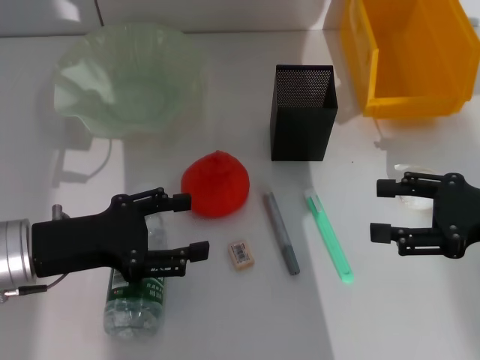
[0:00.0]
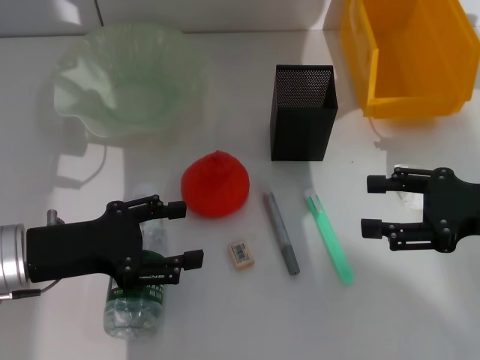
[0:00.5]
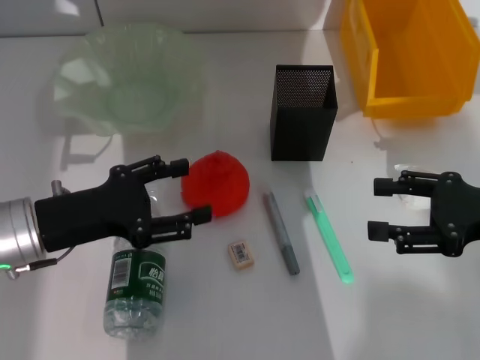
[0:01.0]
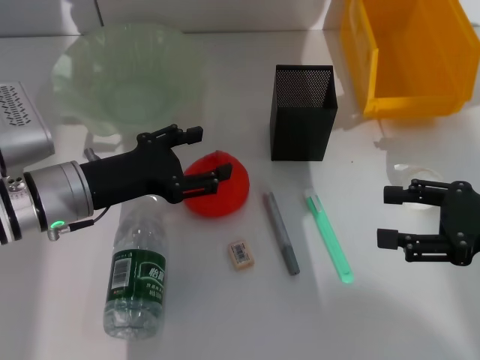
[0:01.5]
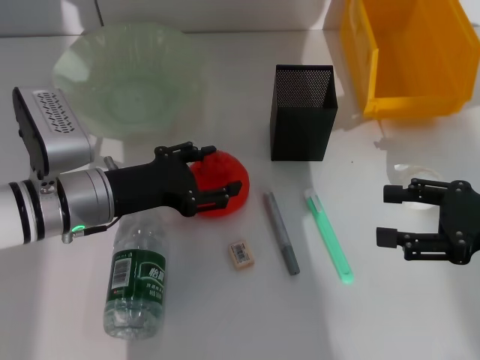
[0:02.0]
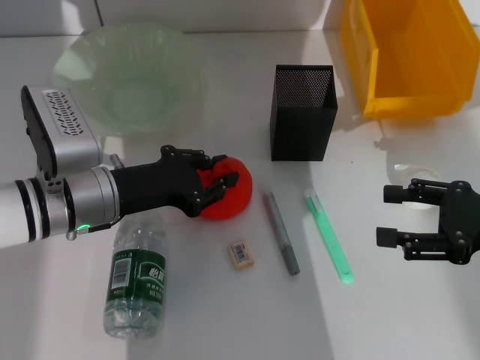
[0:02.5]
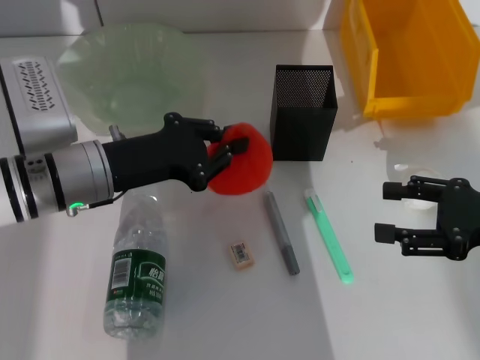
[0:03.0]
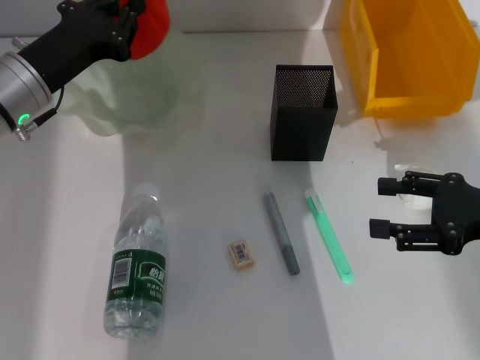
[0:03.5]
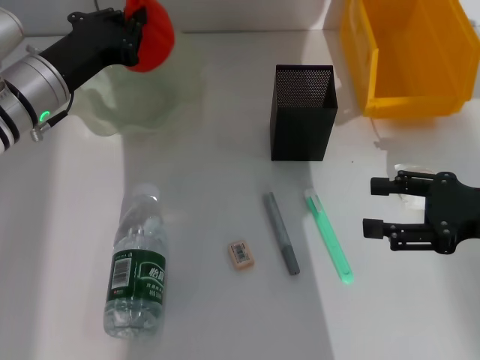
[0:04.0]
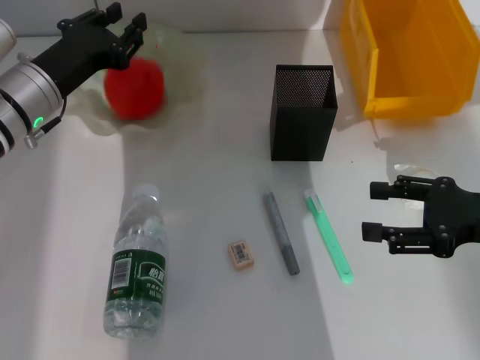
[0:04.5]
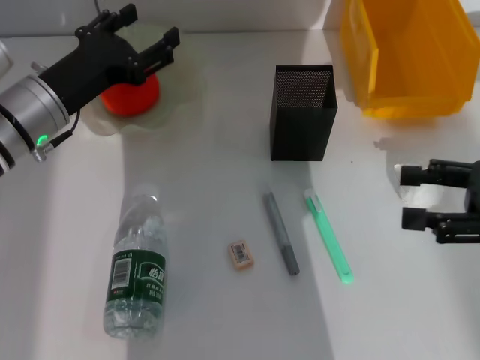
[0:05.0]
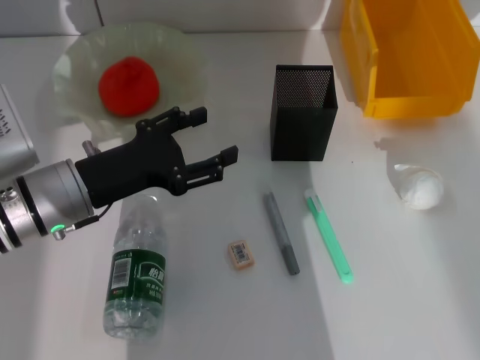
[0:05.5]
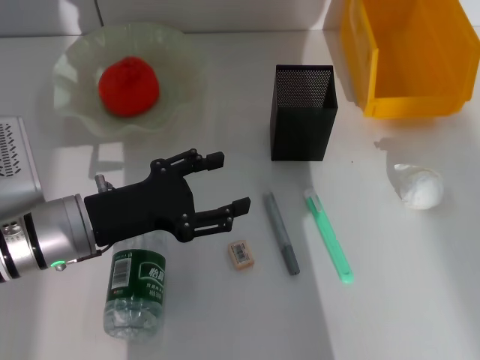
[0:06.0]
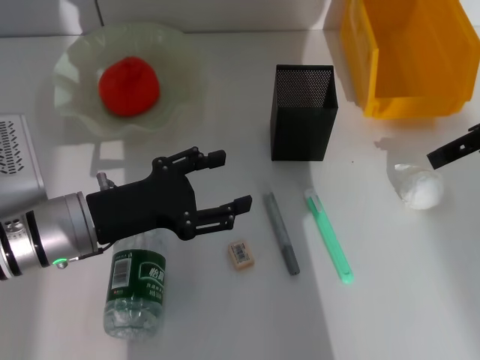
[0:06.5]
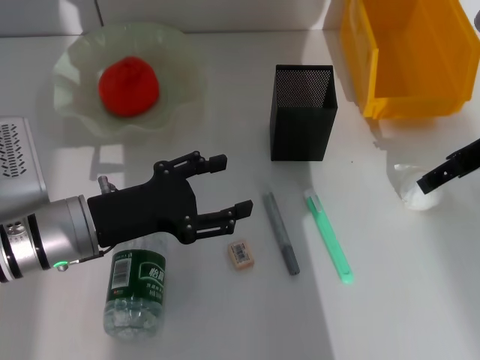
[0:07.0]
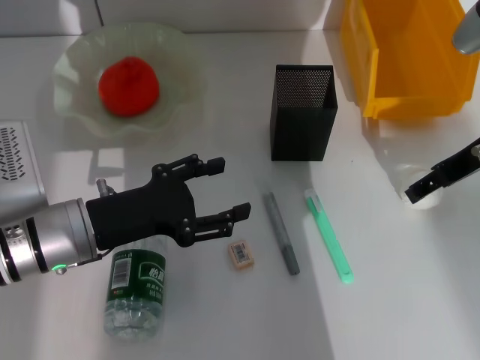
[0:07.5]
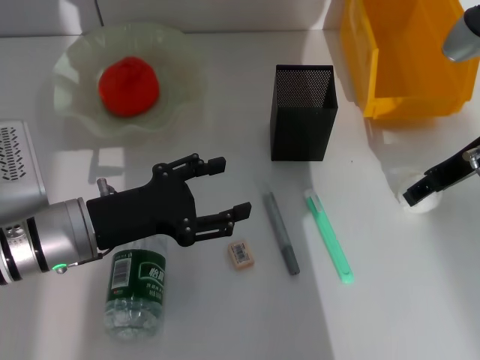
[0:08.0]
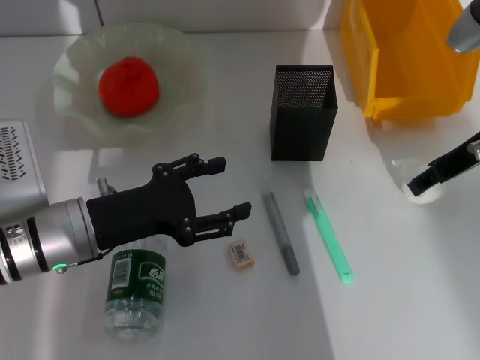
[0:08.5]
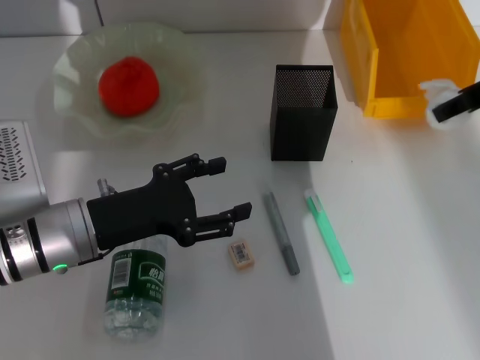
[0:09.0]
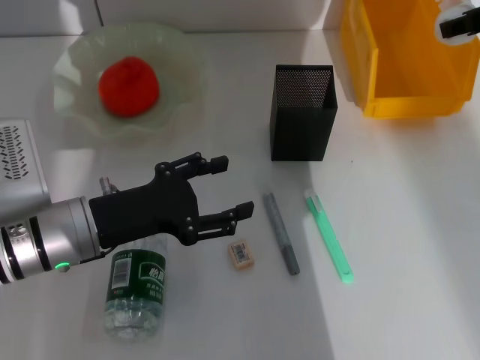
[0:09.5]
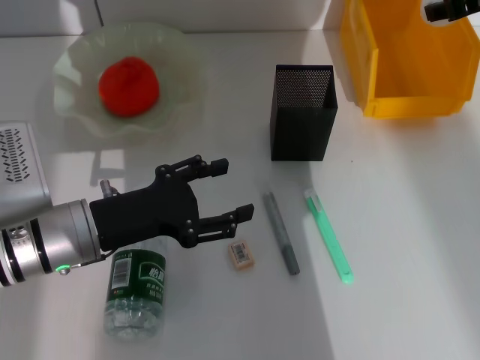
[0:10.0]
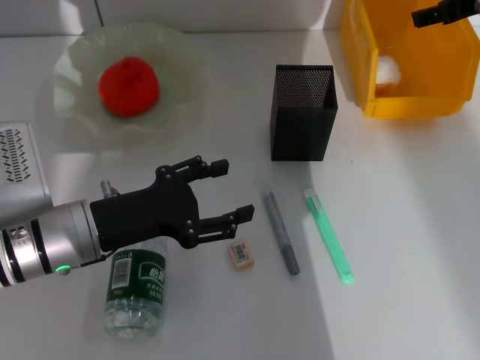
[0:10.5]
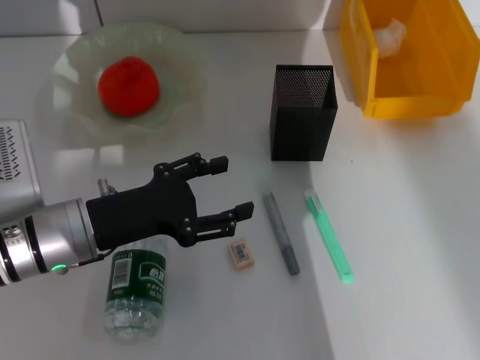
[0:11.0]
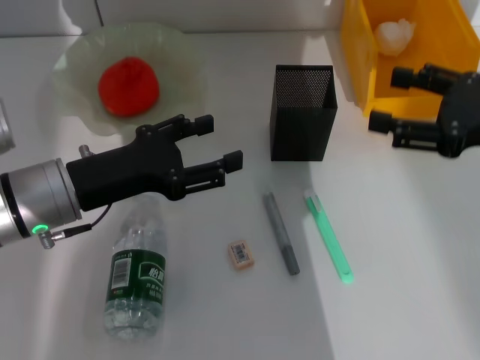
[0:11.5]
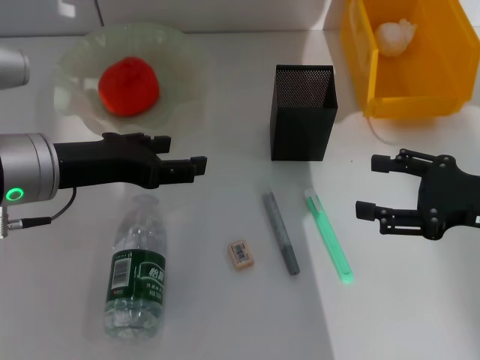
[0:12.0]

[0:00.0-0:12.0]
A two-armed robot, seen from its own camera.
Step, 0:00.0 to 0:02.5: Grab the orange with the left hand.
Step, 0:03.0 to 0:04.5: Place the orange into the fruit bowl with the left hand.
Step, 0:05.0 to 0:08.0: Grab the paper ball with the right hand.
Step, 0:08.5 to 0:10.5: Place the paper ball into the trash can with the right hand.
0:00.0 to 0:02.0: The left gripper travels forward and to the right by roughly 10 cm.
0:02.0 to 0:04.0: The left gripper travels forward by some 5 cm, and closes.
0:04.0 to 0:06.0: The right gripper moves upward, about 20 cm. The left gripper goes some 10 cm backward, and opens its fingers.
0:06.0 to 0:08.0: The right gripper is displaced downward, to the left and forward by about 15 cm.
0:08.0 to 0:10.0: The right gripper travels upward and forward by about 10 cm.
0:10.0 to 0:12.0: The left gripper travels upward by approximately 10 cm. The right gripper goes approximately 20 cm backward and downward, and opens up.

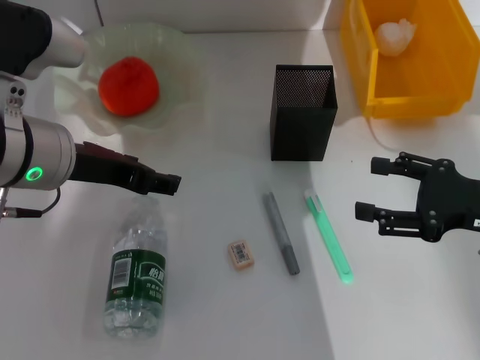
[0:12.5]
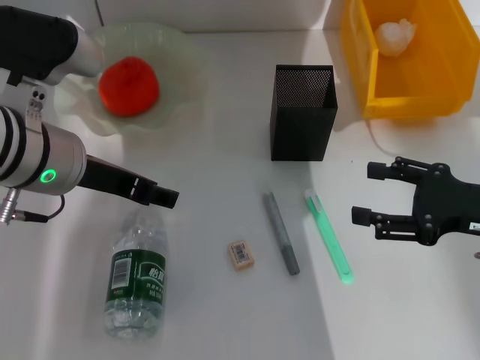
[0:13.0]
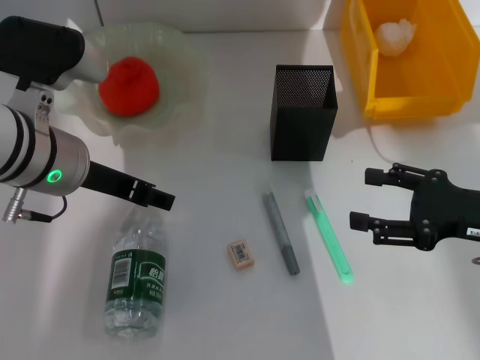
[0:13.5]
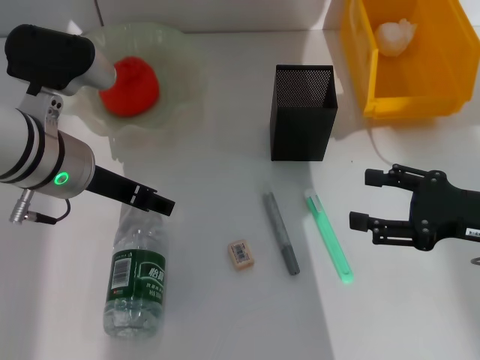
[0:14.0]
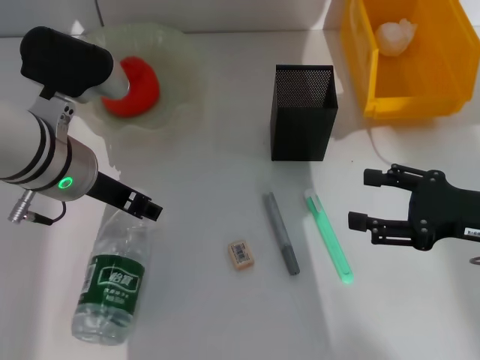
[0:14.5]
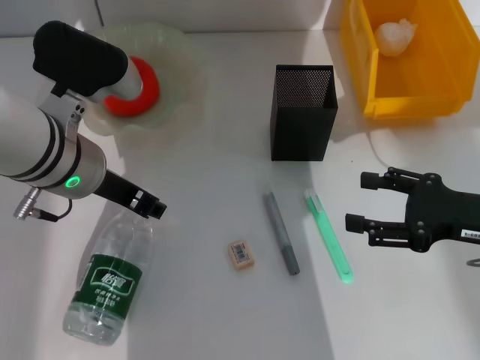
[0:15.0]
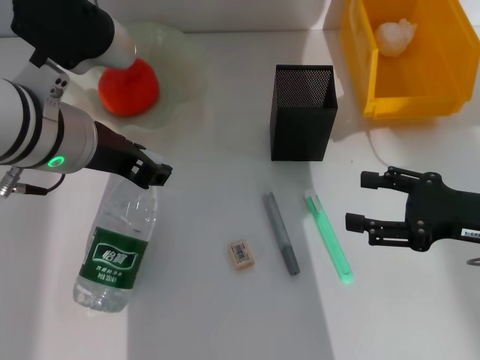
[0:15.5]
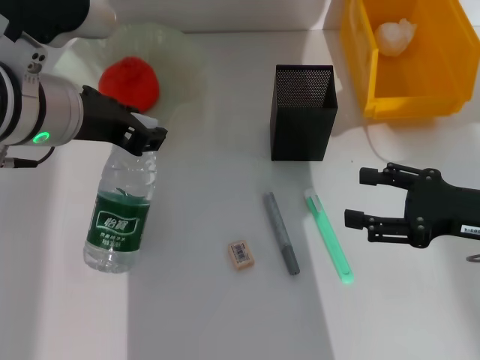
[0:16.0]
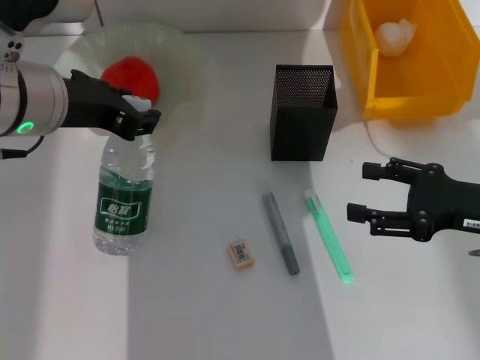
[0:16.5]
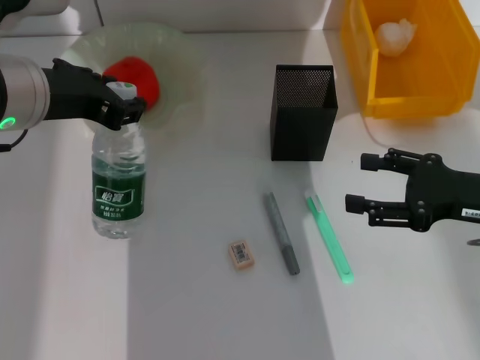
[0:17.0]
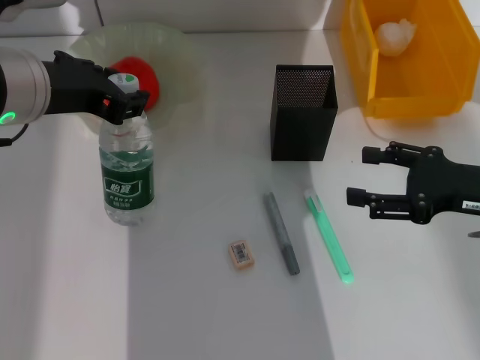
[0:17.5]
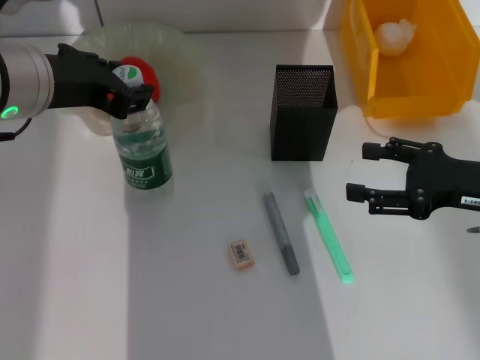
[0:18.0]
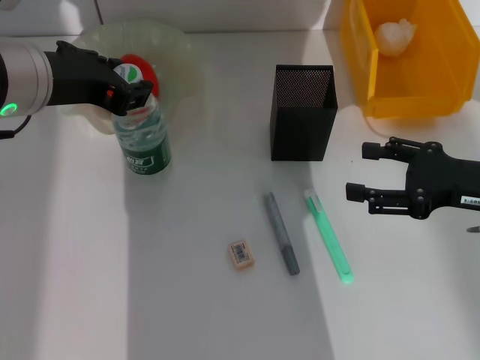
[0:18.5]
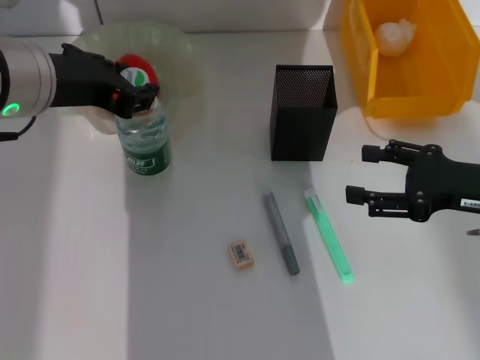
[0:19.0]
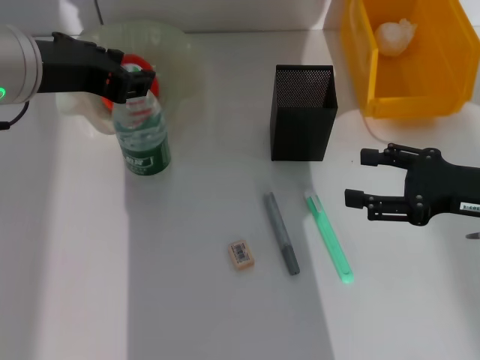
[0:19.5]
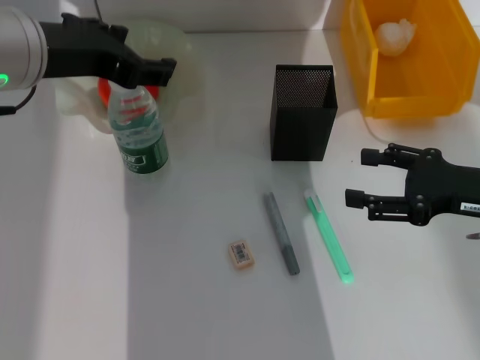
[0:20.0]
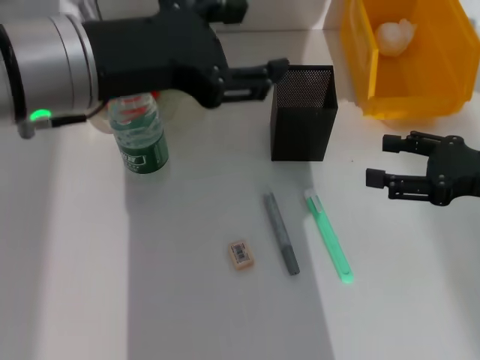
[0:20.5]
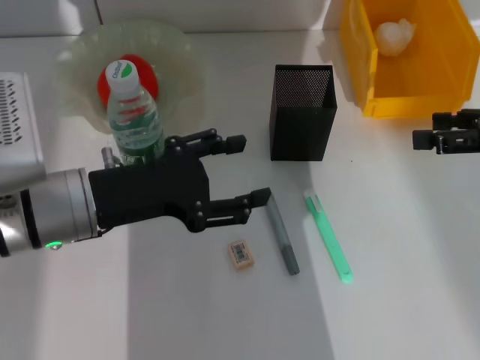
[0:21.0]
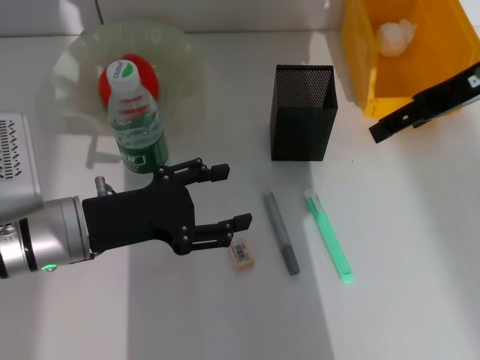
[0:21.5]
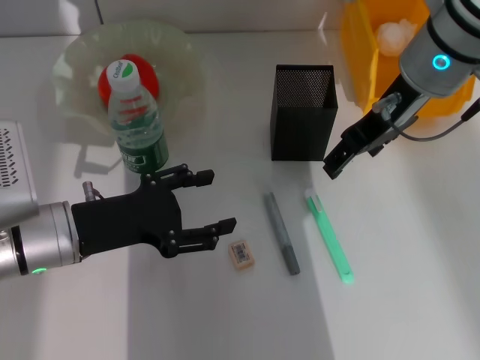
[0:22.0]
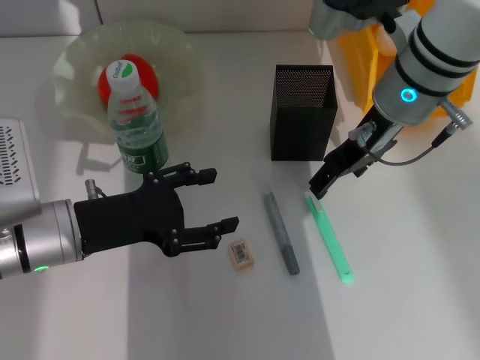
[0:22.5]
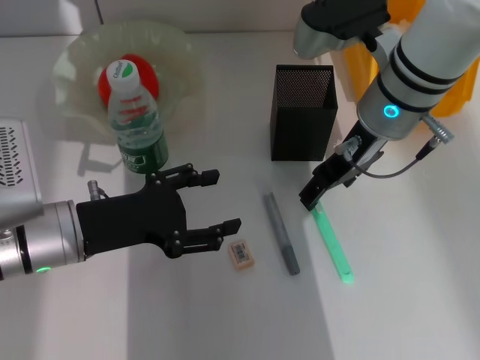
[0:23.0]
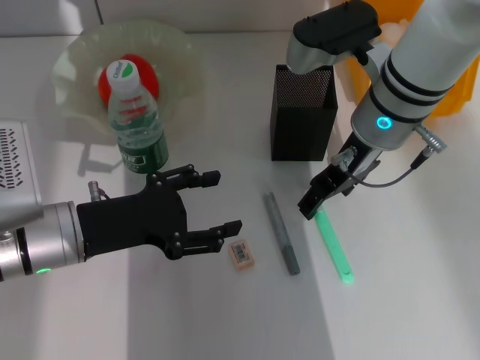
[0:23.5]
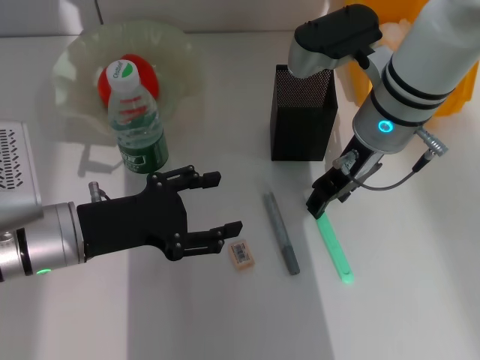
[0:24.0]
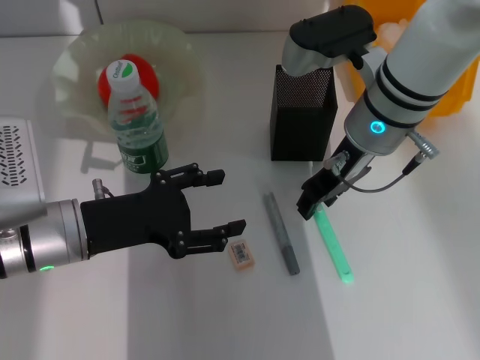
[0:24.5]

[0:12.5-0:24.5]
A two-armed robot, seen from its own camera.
Step, 0:12.5 to 0:15.0: Grab the water bottle with the left hand.
Step, 0:15.5 to 0:19.5: Place the water bottle on the table with the left hand.
0:14.5 to 0:16.5: The left gripper moves upward, roughly 5 cm.
0:16.5 to 0:18.5: The grippers stay close to where they were, moving slightly.
0:18.5 to 0:20.5: The left gripper opens up.
0:20.5 to 0:22.5: The left gripper moves downward, about 15 cm. Meanwhile the right gripper travels to the left, forward and upward by approximately 20 cm.
0:22.5 to 0:24.5: The right gripper closes its fingers.

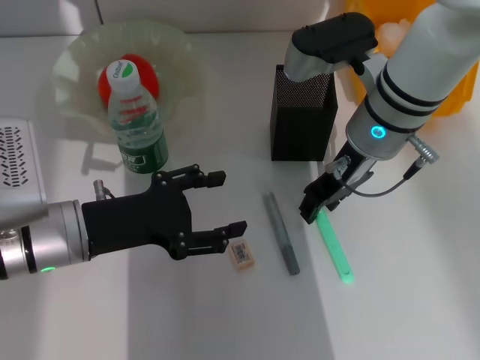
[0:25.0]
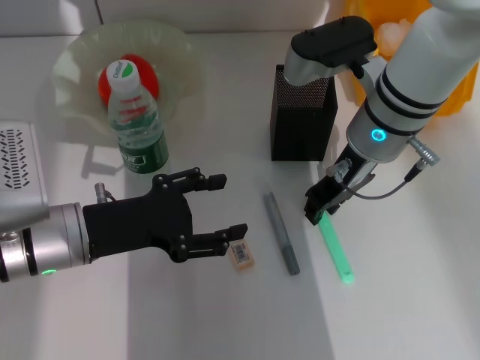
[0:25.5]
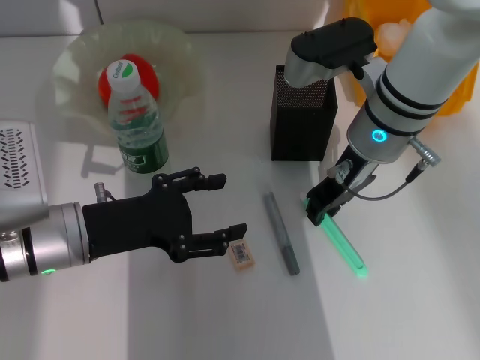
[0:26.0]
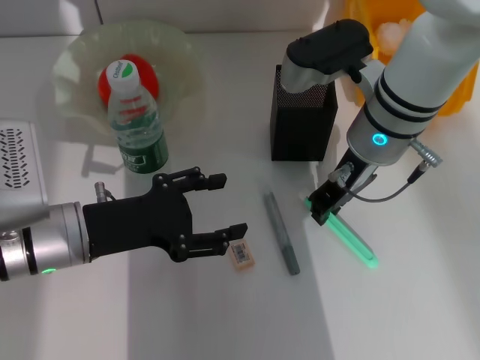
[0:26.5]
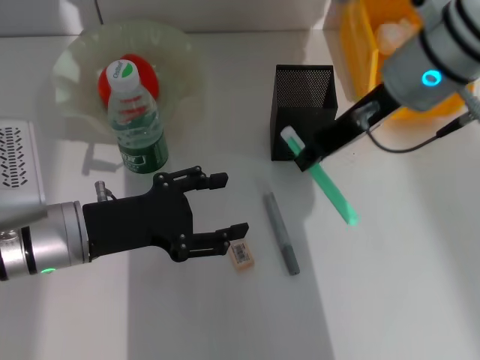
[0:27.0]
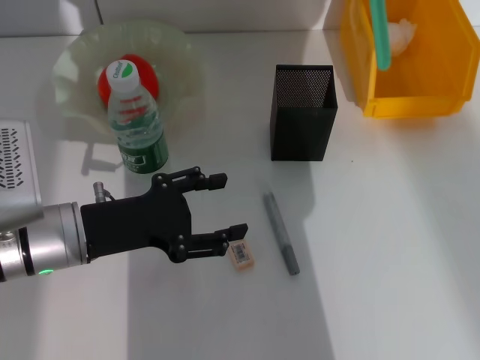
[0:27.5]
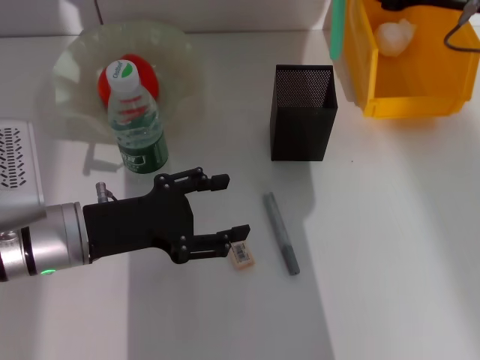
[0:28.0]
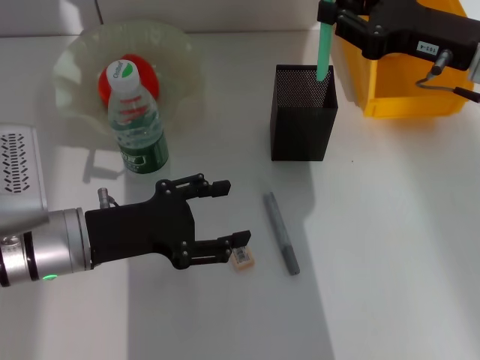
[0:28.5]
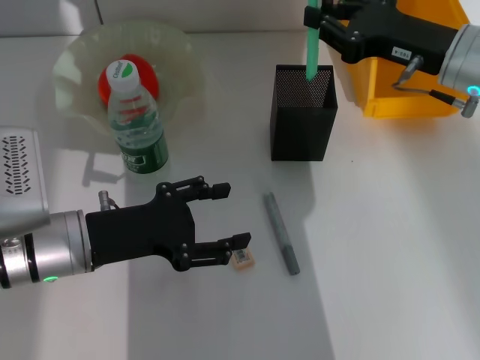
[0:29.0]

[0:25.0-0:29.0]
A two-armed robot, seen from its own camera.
0:25.0 to 0:27.0: The right gripper heads upward, covering some 10 cm, and closes up.
0:27.0 to 0:29.0: The right gripper goes about 10 cm to the right and downward.
